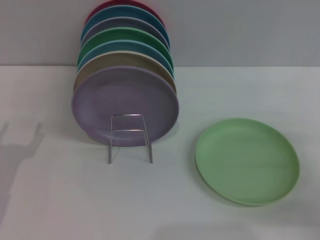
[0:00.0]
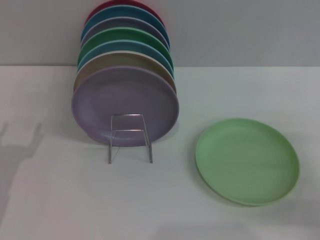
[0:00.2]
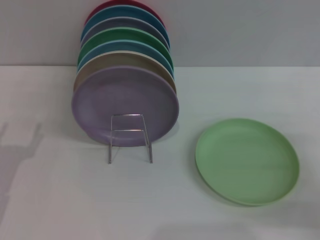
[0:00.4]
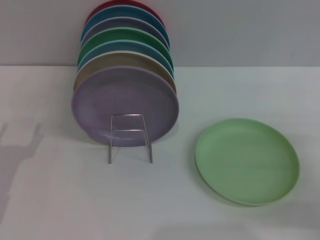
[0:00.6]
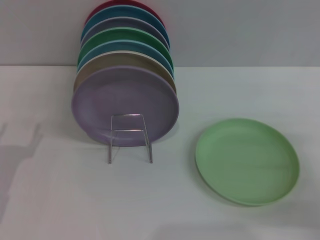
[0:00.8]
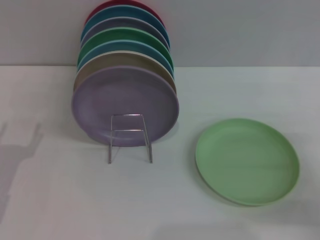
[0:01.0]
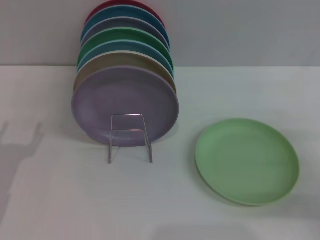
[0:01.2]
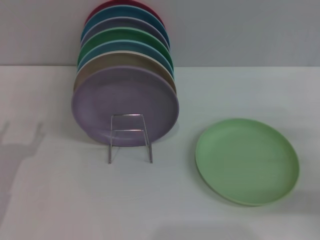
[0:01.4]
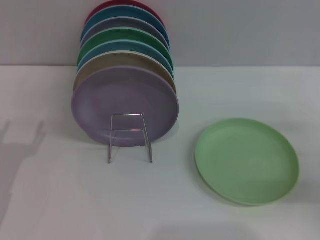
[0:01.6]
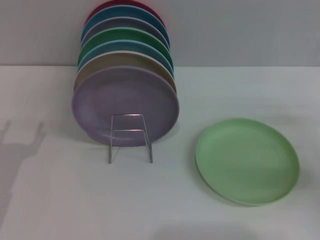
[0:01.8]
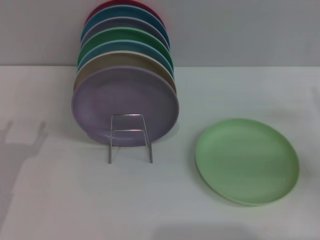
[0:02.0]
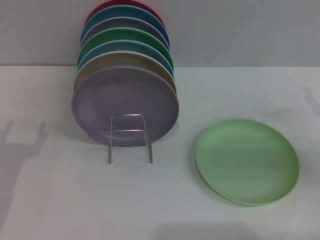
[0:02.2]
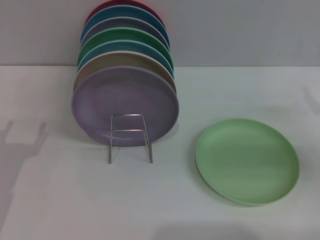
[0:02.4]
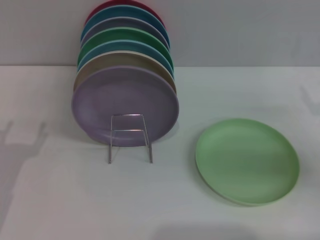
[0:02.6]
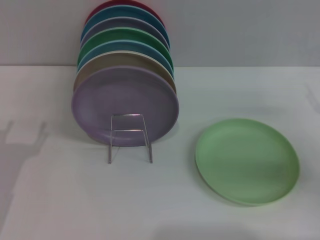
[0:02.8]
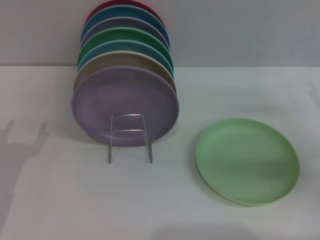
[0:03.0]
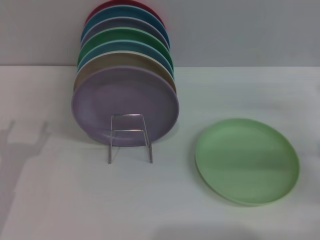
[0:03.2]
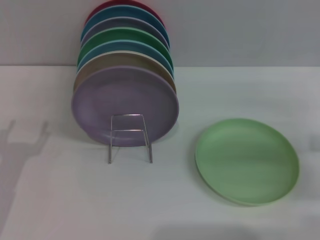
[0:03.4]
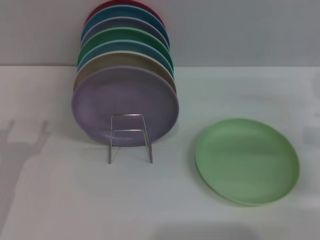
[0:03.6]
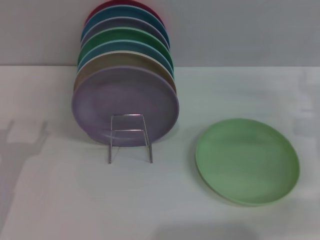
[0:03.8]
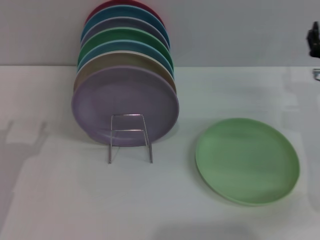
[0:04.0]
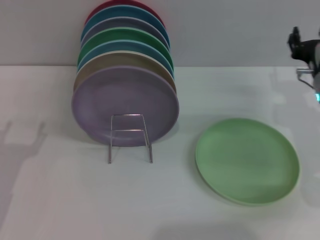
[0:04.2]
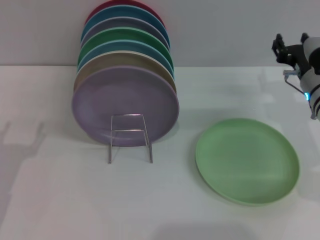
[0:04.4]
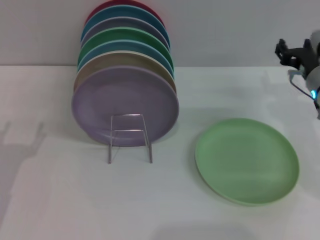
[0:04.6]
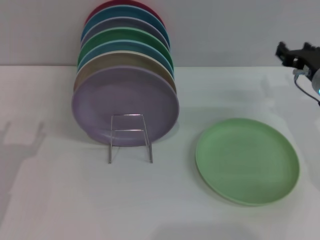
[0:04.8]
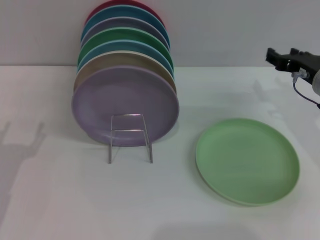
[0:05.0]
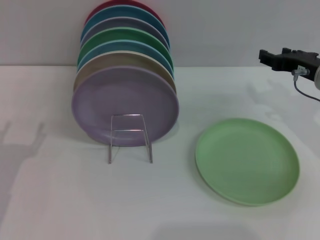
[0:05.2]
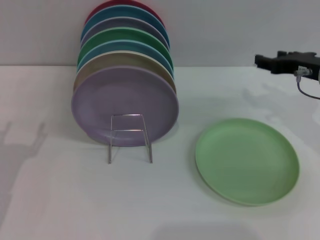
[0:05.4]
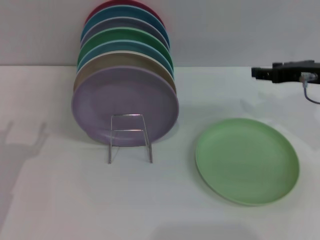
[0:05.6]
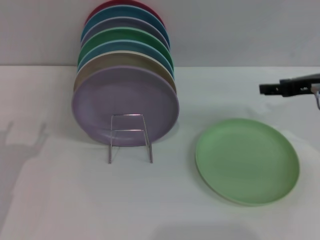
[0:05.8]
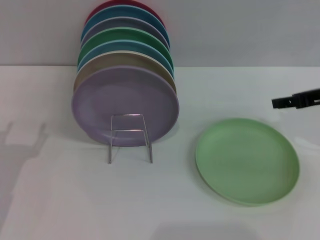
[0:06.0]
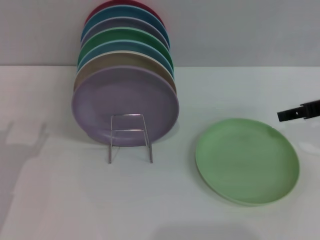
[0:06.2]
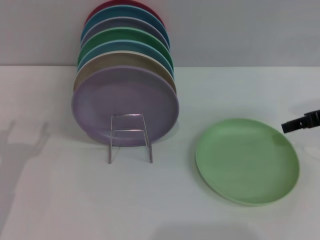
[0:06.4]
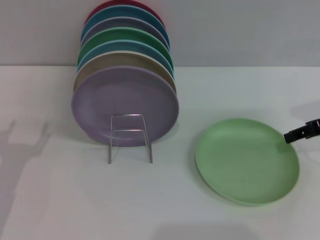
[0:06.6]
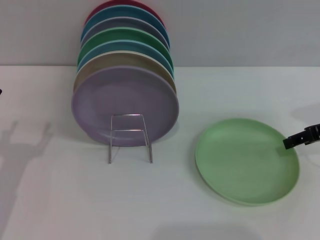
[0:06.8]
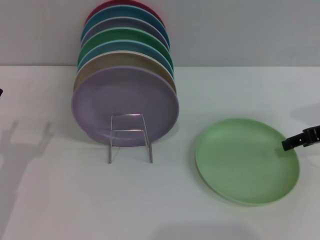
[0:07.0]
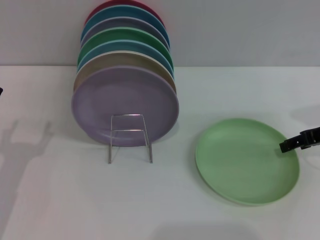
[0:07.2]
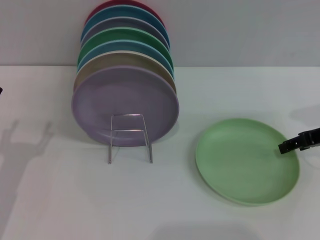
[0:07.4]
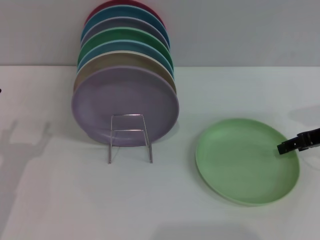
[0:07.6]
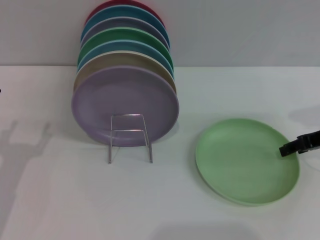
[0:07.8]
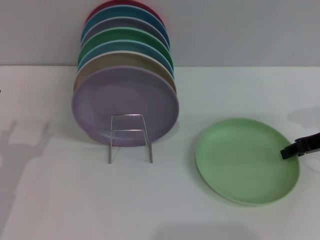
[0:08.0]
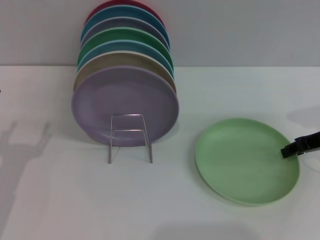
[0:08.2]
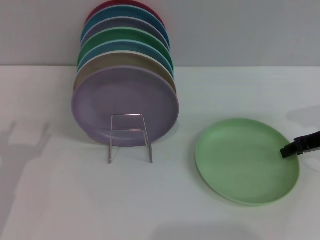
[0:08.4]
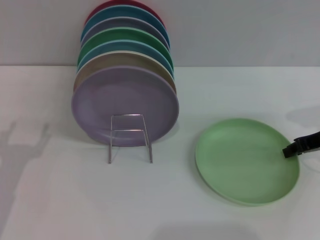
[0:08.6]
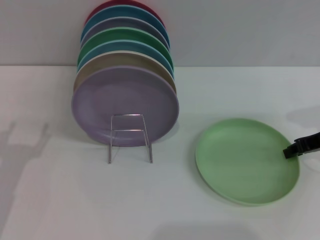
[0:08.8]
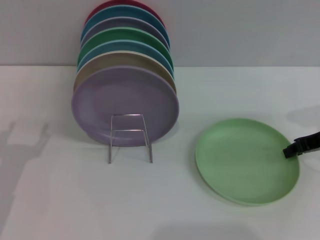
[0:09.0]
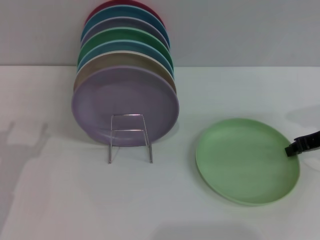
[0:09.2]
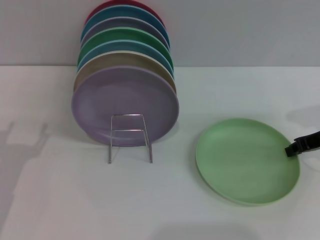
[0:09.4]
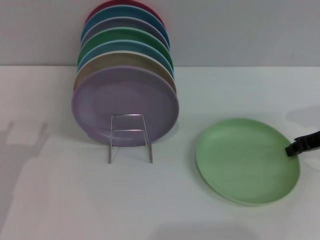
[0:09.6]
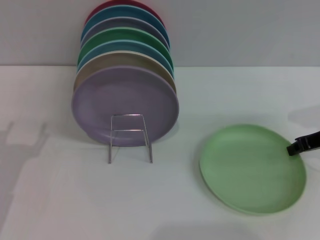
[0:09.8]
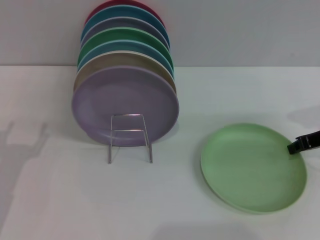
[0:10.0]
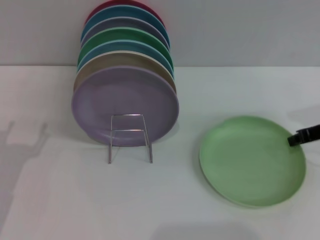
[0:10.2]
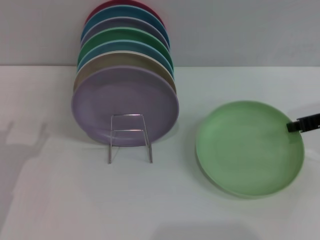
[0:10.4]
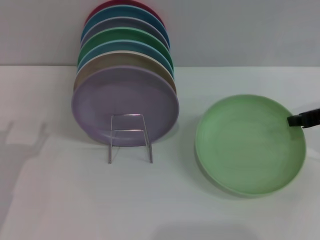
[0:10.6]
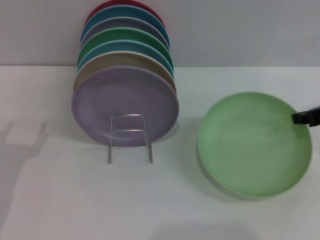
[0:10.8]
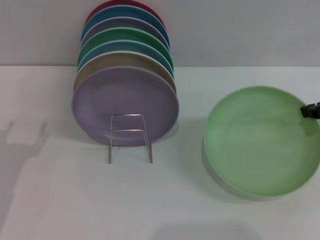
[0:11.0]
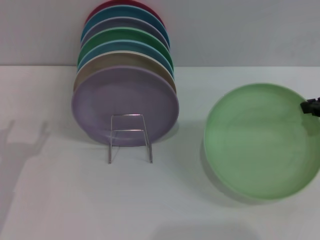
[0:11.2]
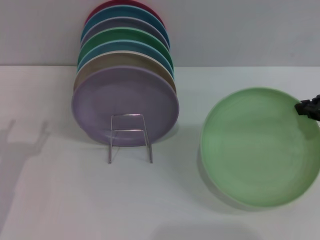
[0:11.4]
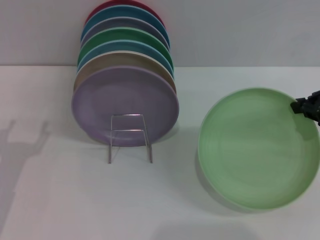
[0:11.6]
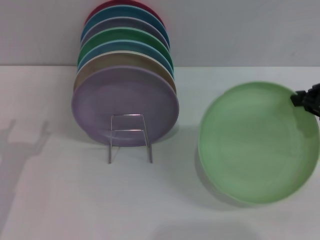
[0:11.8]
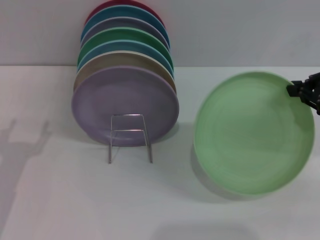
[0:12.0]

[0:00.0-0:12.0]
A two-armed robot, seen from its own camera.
Task of the whole recording: Grip the plate with one hand, pass it to the other, then set it on the shelf.
0:00.0 to 0:01.6: The grippers make only small movements.
0:03.0 to 0:04.4: The right gripper travels to the left and forward by roughly 15 cm.
0:04.4 to 0:06.0: The right gripper heads upward and to the right, covering roughly 10 cm.
0:06.0 to 0:07.6: The grippers make only small movements.
0:07.6 to 0:09.0: The right gripper closes.
0:09.0 to 0:10.4: The grippers make only small movements.
0:10.4 to 0:12.0: The right gripper goes approximately 5 cm upward.

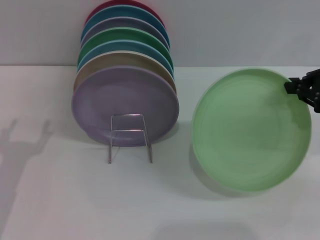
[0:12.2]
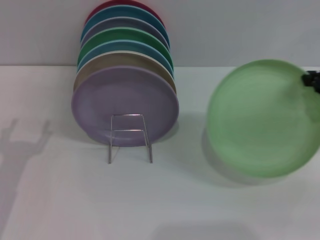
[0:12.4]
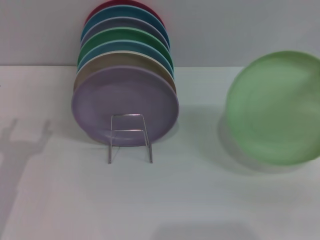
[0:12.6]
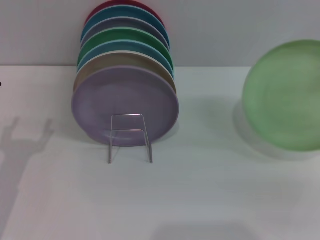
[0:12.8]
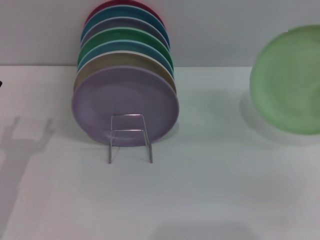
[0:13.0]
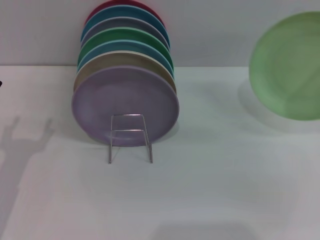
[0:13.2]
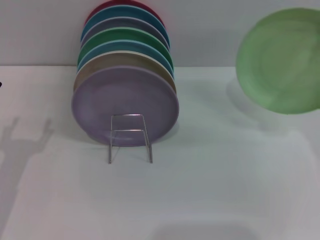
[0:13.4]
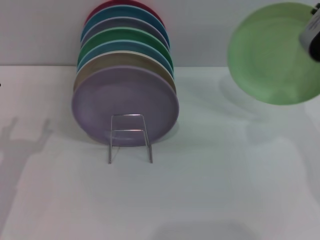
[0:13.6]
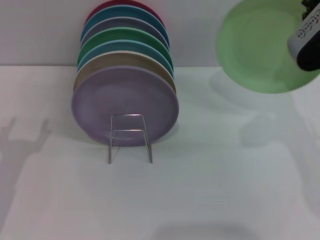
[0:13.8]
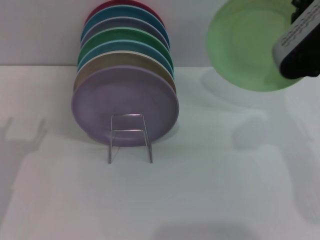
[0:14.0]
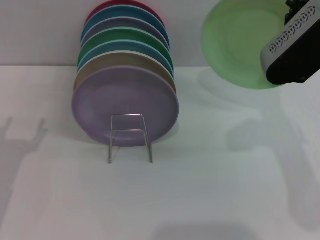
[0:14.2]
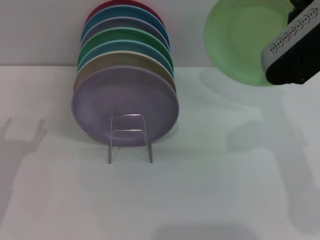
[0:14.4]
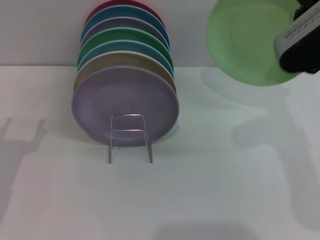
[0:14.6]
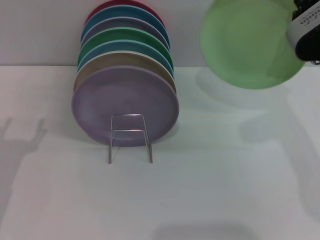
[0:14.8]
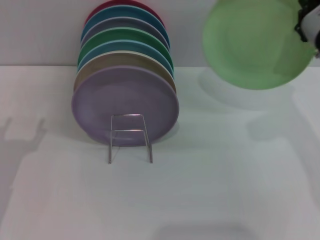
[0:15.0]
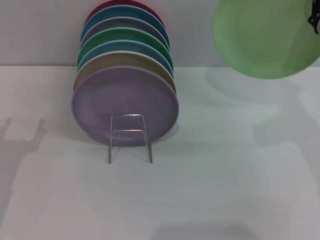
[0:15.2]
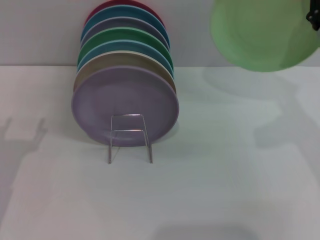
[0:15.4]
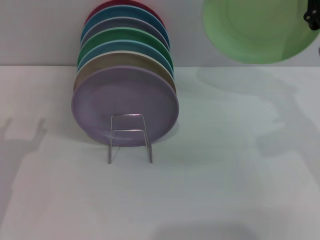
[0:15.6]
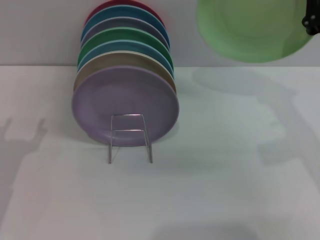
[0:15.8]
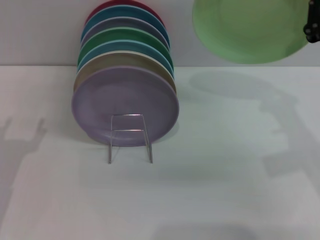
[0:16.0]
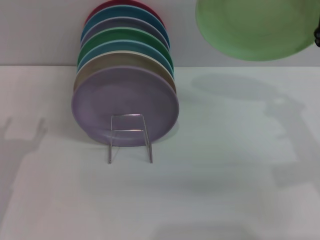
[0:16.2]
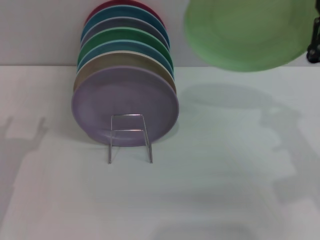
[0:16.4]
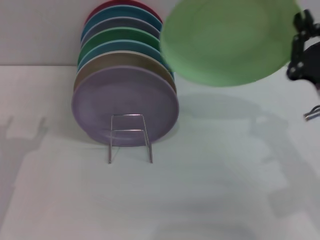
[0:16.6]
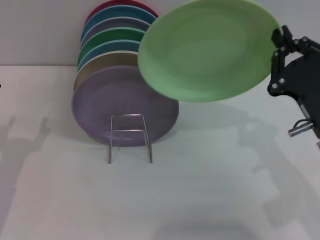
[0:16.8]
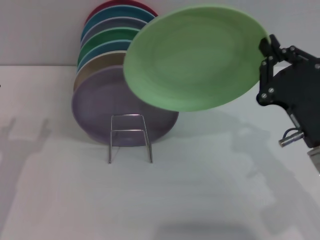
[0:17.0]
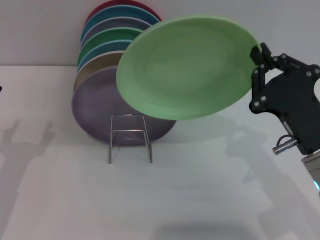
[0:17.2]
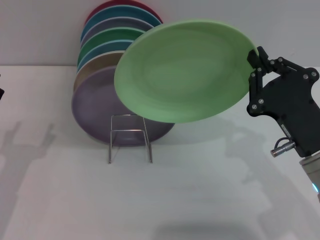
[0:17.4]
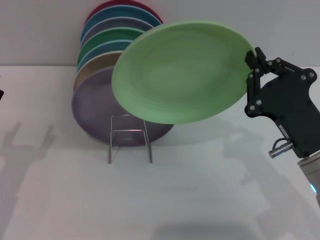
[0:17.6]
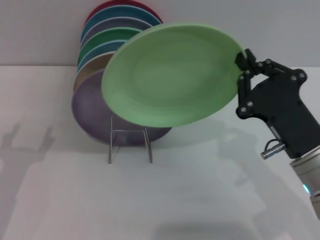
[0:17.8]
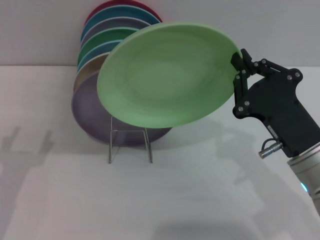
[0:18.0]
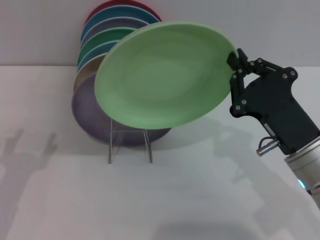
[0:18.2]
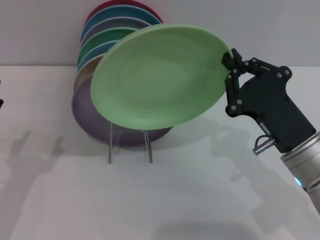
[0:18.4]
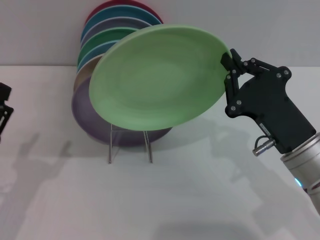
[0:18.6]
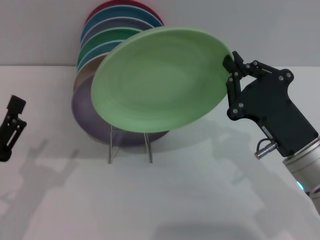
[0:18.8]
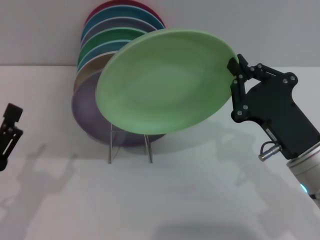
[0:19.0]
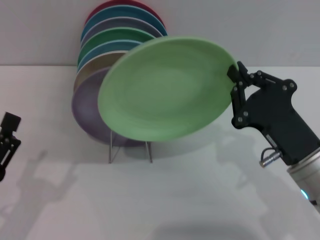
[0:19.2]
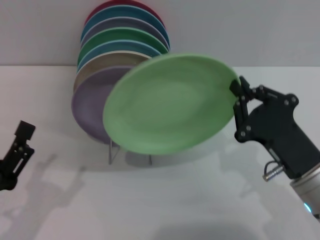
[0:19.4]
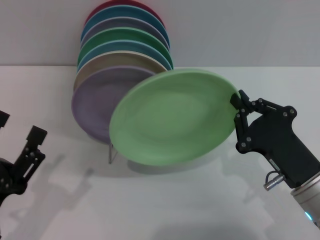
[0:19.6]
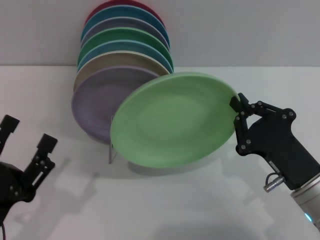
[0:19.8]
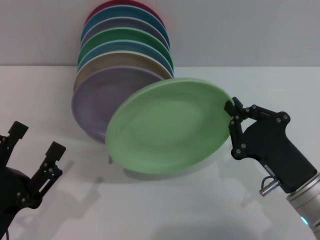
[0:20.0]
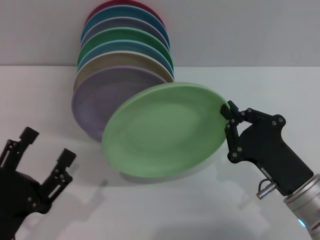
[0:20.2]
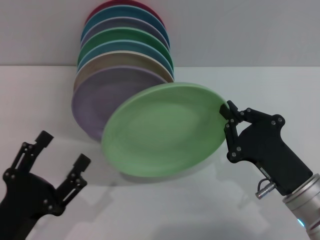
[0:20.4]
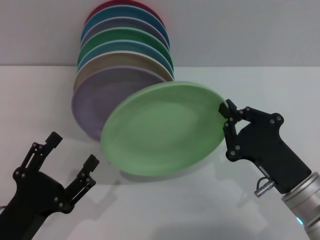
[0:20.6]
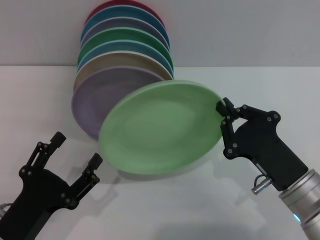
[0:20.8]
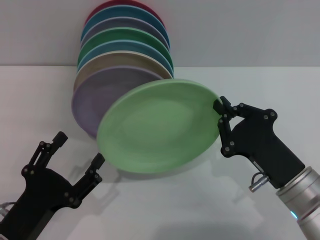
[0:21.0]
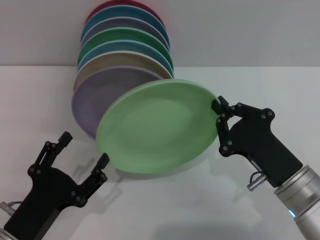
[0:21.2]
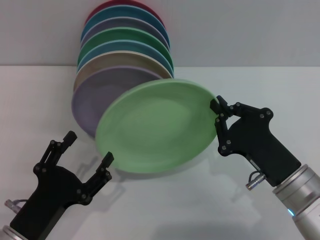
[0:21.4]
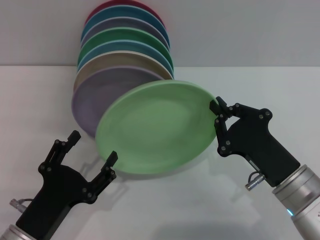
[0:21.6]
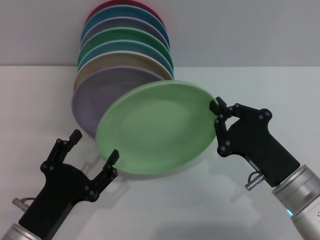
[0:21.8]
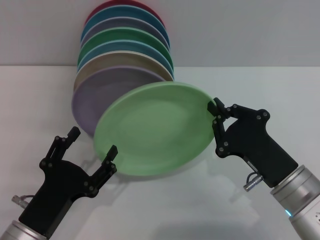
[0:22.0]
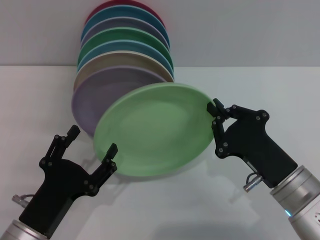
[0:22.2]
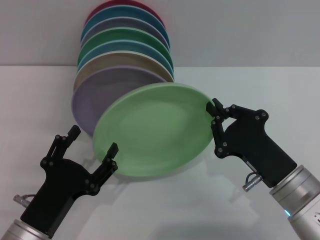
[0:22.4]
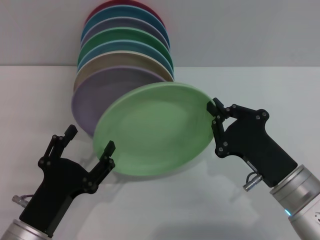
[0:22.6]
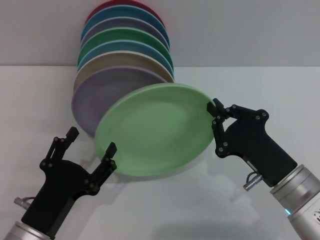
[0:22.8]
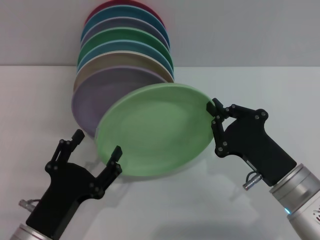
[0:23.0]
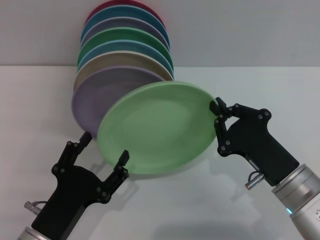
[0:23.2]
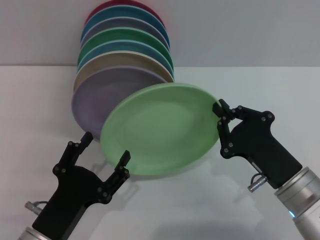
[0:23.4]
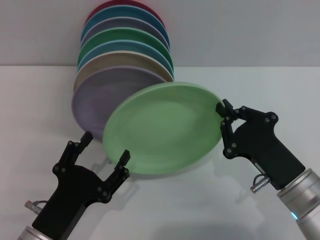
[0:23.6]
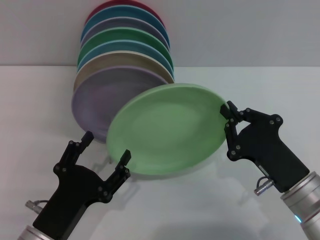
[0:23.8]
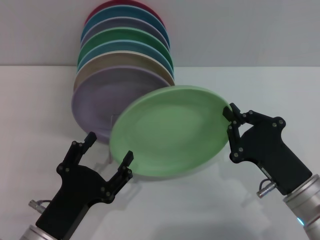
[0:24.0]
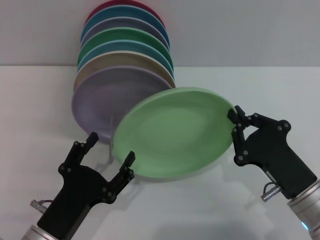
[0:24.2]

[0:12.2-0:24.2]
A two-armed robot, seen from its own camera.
Task of the whole recording: Grip the plate with one hand, pass it to the other, then set it on the shelf.
0:12.2 to 0:13.8: The right gripper moves to the left, some 10 cm.
0:13.8 to 0:15.2: The grippers make only small movements.
0:15.2 to 0:16.6: The right gripper goes some 10 cm downward and backward.
0:16.6 to 0:18.2: The right gripper shifts by roughly 5 cm.
0:18.2 to 0:19.8: The left gripper travels backward by roughly 5 cm. Meanwhile the right gripper ends up roughly 5 cm from where it was.
0:19.8 to 0:21.2: The grippers move only a little.
0:21.2 to 0:24.2: The grippers move only a little.
